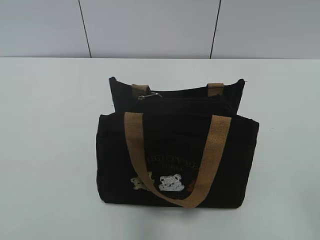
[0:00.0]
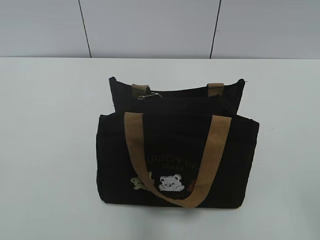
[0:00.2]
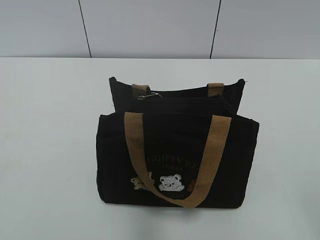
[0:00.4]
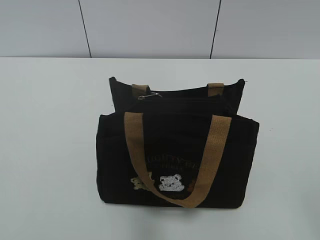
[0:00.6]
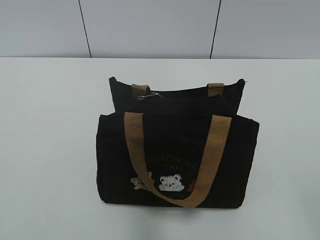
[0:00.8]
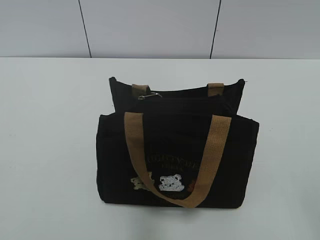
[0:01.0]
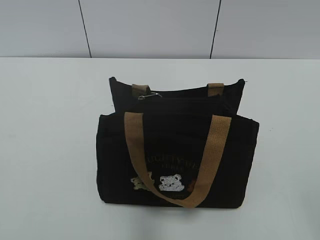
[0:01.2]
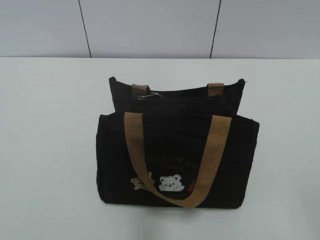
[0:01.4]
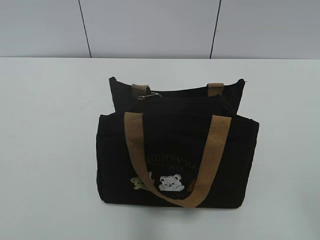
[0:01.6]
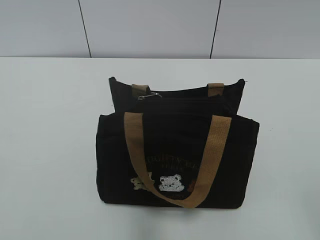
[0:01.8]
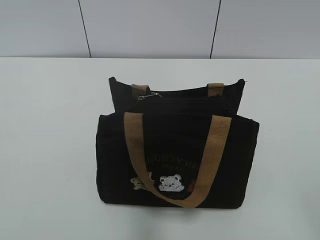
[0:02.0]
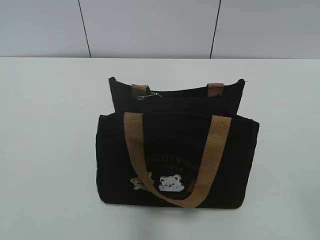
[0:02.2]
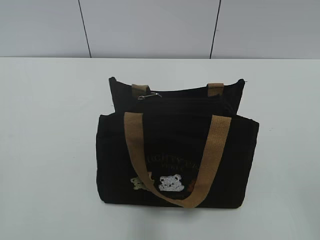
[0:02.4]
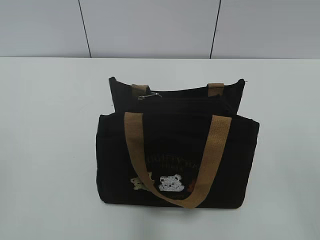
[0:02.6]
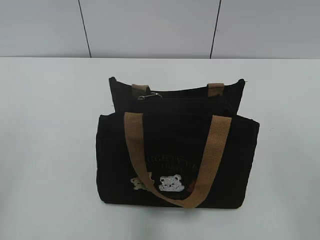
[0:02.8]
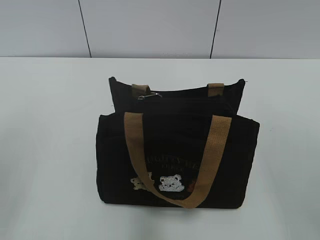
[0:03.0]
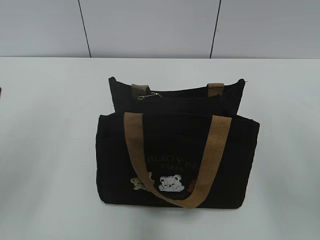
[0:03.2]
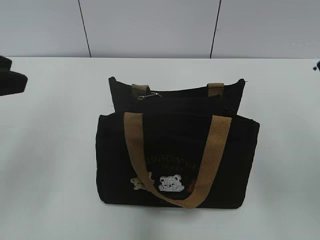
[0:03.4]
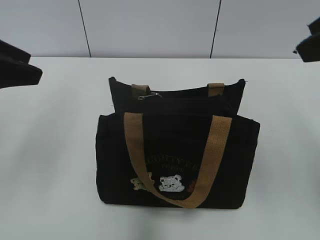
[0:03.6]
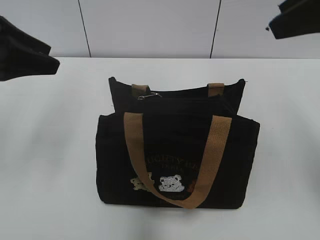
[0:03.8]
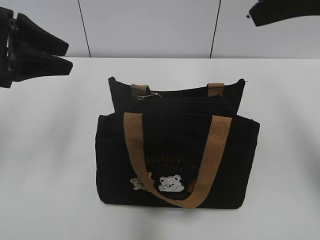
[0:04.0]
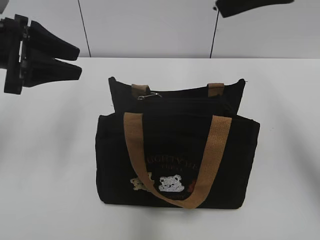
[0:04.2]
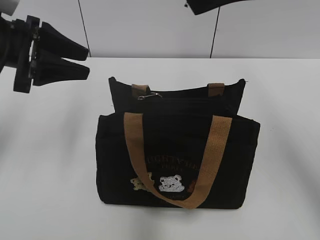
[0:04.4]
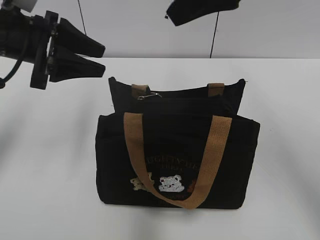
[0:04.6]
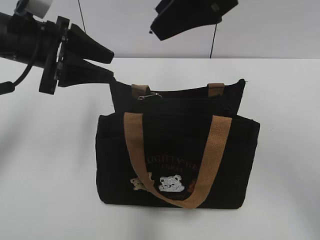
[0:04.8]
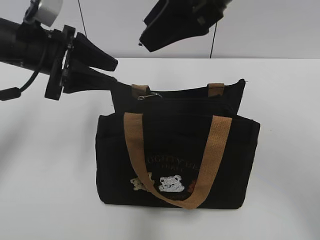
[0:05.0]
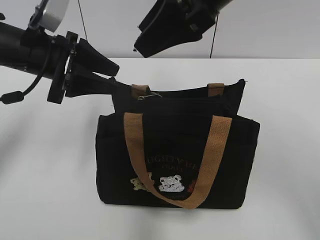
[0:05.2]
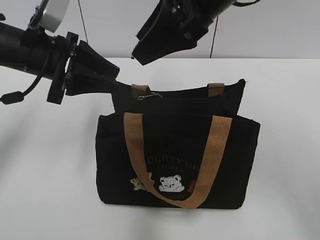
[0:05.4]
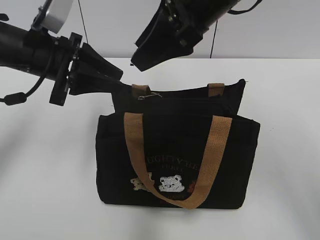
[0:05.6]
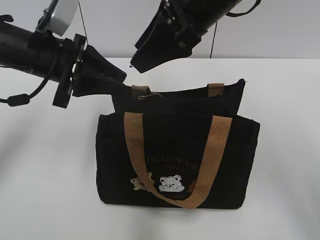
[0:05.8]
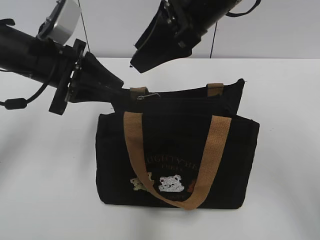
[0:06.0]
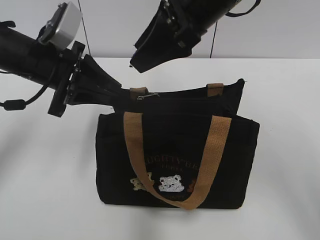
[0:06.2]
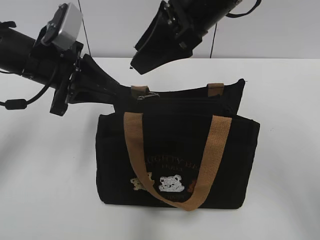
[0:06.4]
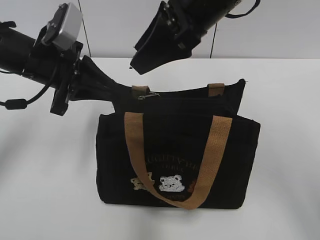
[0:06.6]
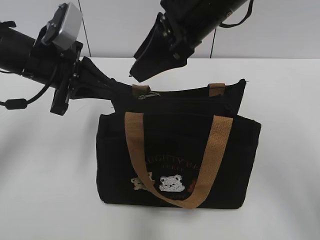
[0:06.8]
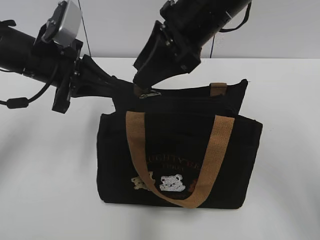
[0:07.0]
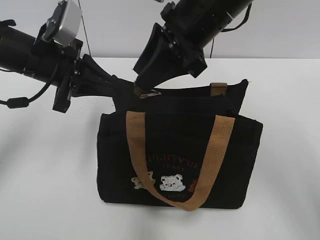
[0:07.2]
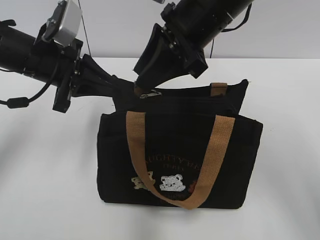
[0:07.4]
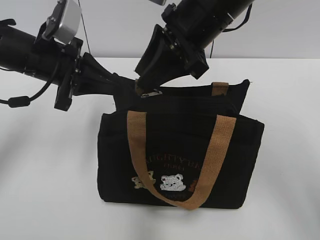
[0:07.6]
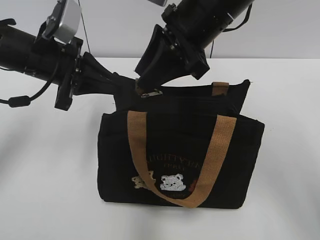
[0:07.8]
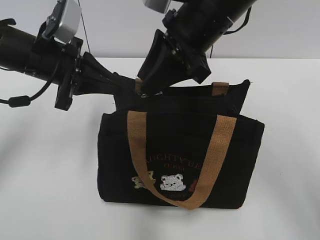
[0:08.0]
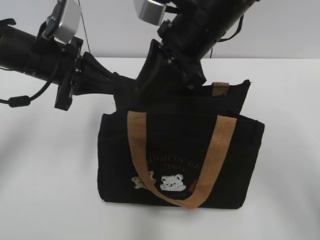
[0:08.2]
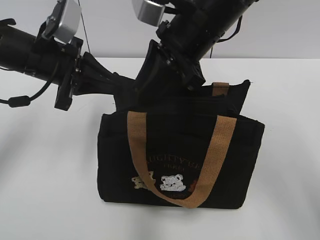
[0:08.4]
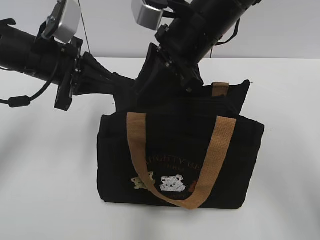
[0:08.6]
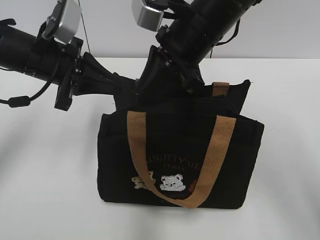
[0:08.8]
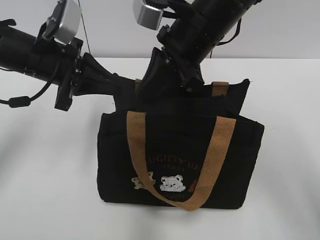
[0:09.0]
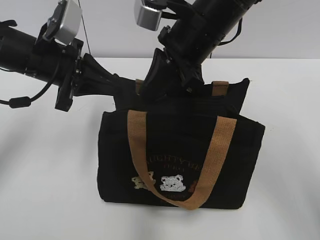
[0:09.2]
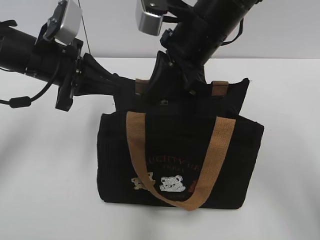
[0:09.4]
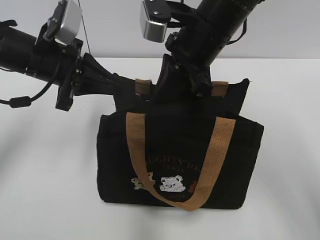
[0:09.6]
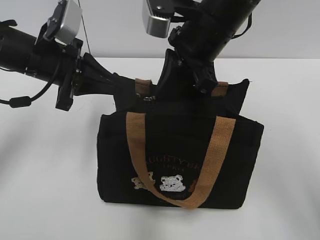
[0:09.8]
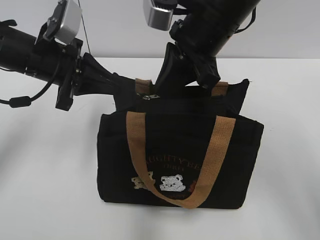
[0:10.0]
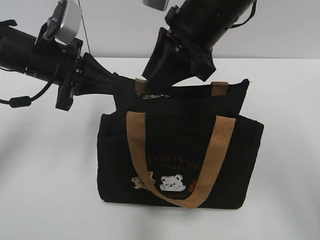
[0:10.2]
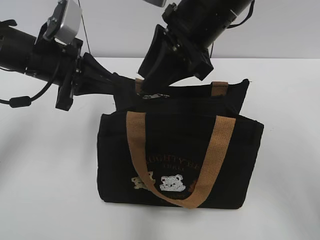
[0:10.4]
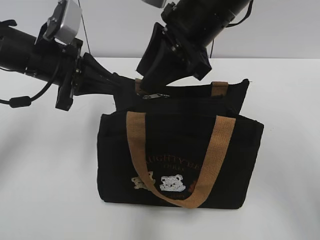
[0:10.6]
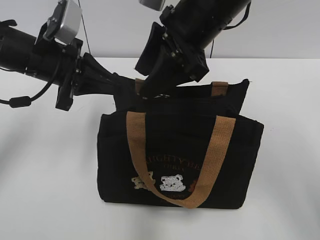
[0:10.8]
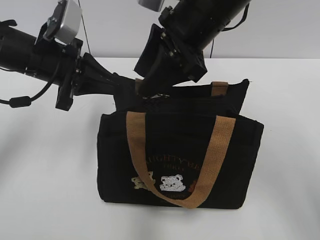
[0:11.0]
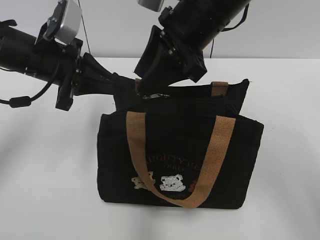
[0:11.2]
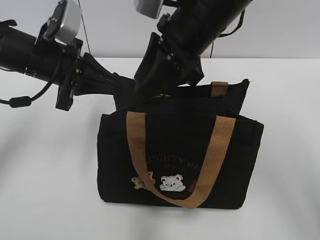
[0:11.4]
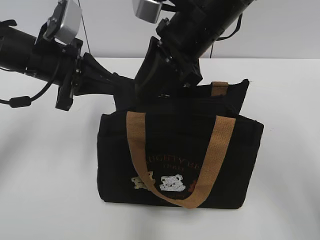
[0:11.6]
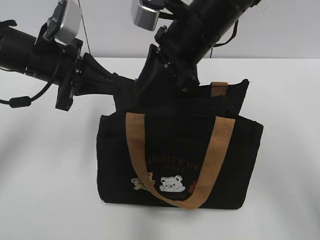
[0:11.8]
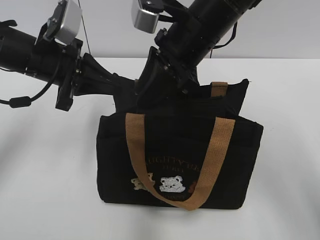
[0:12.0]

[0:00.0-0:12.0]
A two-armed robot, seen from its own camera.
0:03.0 to 0:04.4: The right gripper is displaced forward and to the left by about 25 cm. Meanwhile the left gripper goes about 20 cm forward.
0:04.4 to 0:06.0: The left gripper shifts roughly 5 cm to the right, and closes its fingers. Meanwhile the right gripper moves to the left and downward, approximately 10 cm.
0:06.0 to 0:07.6: The left gripper closes its fingers.
0:07.6 to 0:09.0: The right gripper closes its fingers.
0:09.0 to 0:10.4: The right gripper opens its fingers.
0:10.4 to 0:12.0: There are only small adjustments of the grippers.

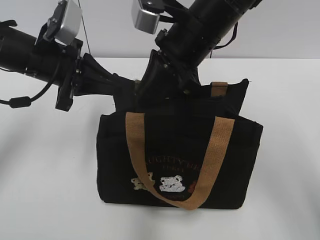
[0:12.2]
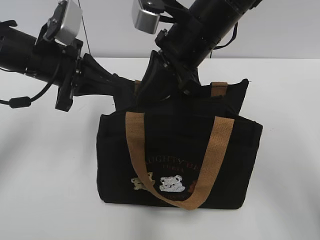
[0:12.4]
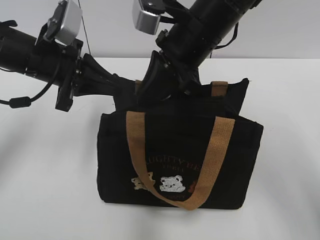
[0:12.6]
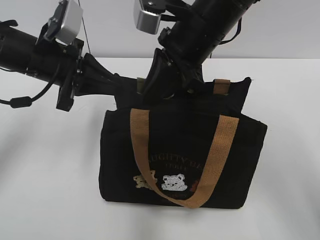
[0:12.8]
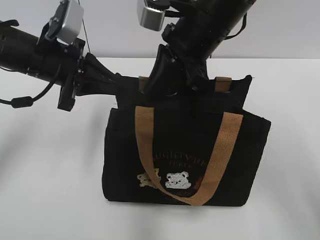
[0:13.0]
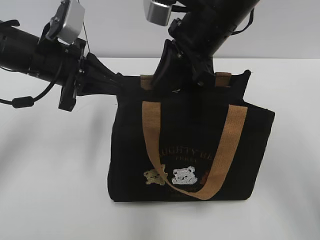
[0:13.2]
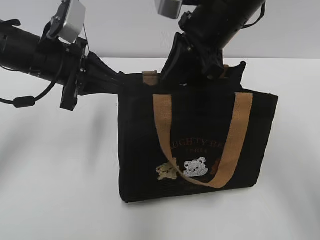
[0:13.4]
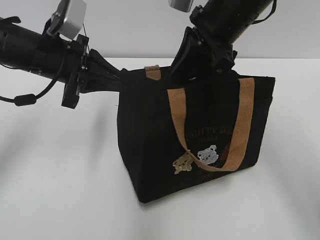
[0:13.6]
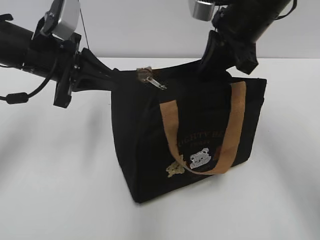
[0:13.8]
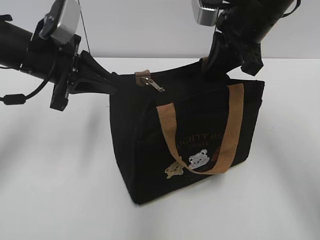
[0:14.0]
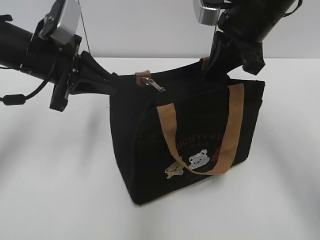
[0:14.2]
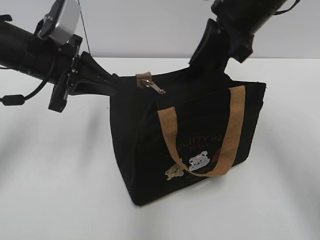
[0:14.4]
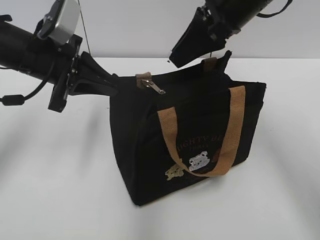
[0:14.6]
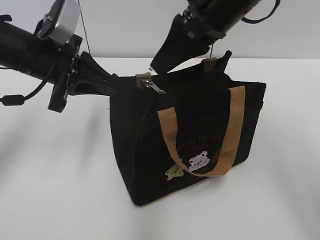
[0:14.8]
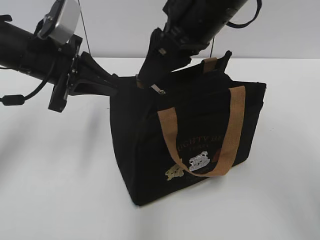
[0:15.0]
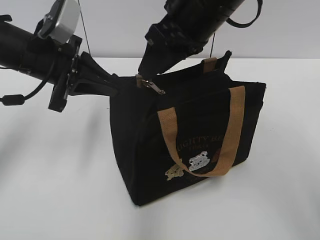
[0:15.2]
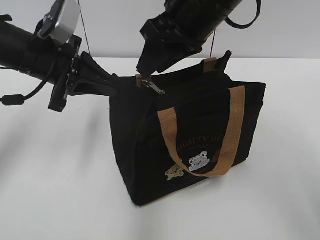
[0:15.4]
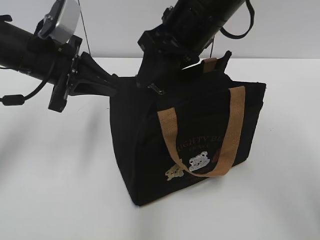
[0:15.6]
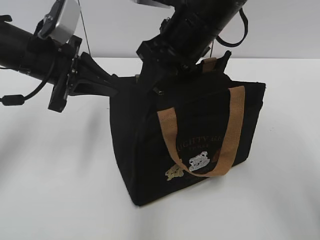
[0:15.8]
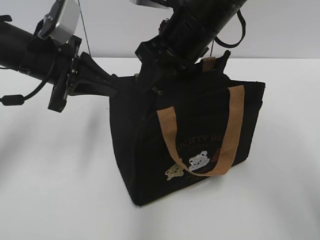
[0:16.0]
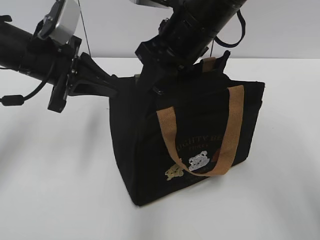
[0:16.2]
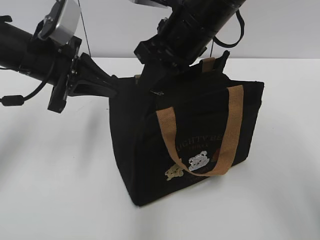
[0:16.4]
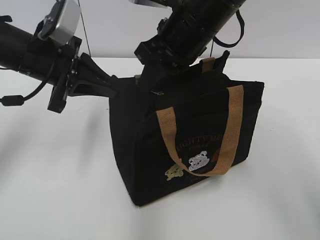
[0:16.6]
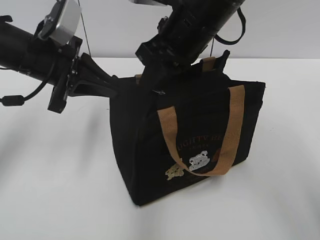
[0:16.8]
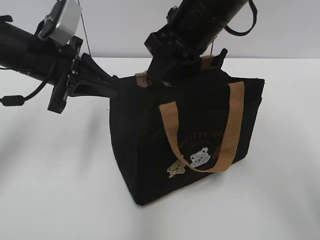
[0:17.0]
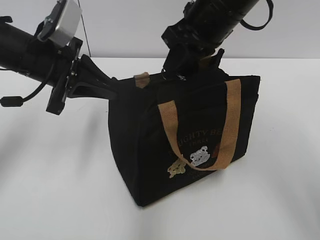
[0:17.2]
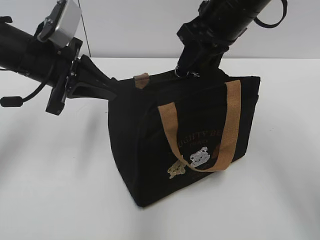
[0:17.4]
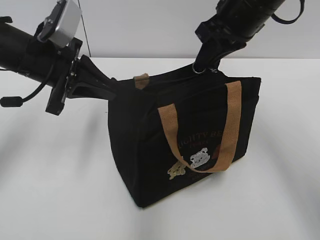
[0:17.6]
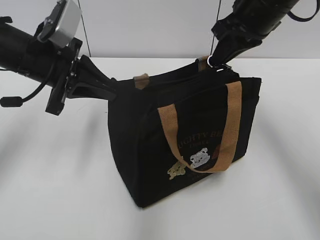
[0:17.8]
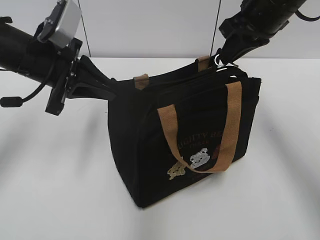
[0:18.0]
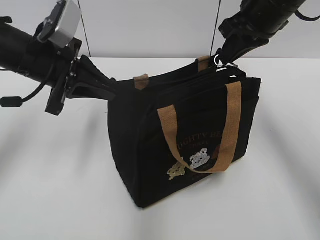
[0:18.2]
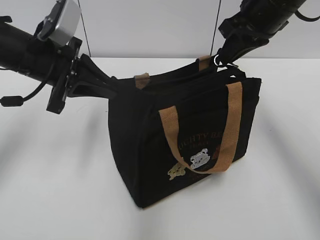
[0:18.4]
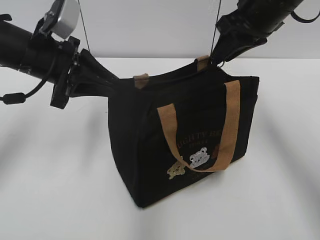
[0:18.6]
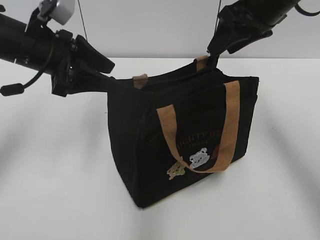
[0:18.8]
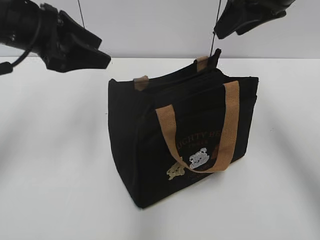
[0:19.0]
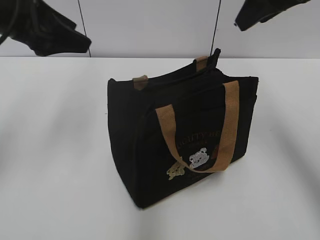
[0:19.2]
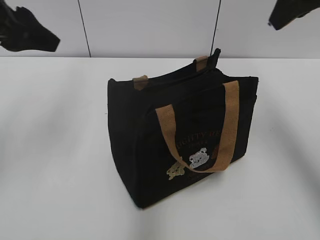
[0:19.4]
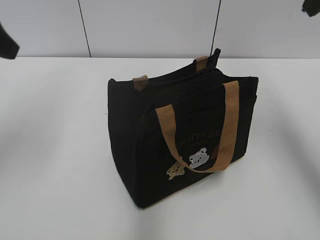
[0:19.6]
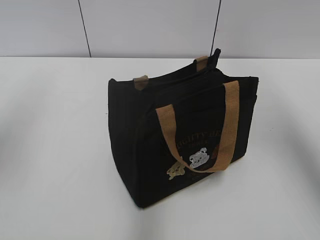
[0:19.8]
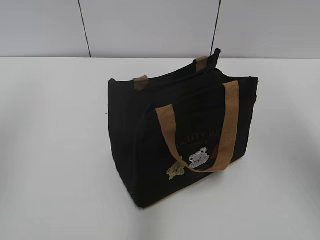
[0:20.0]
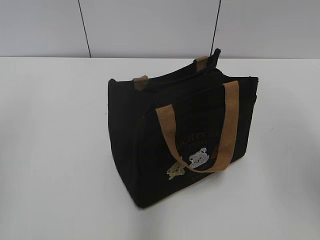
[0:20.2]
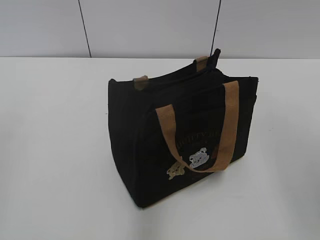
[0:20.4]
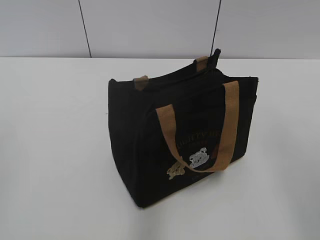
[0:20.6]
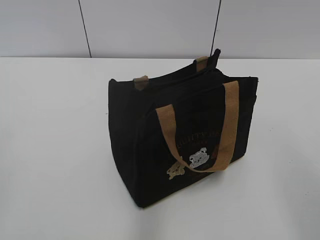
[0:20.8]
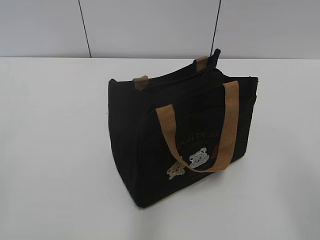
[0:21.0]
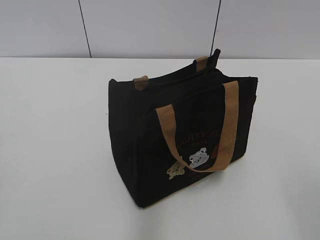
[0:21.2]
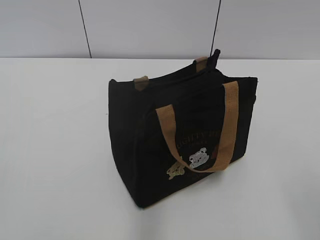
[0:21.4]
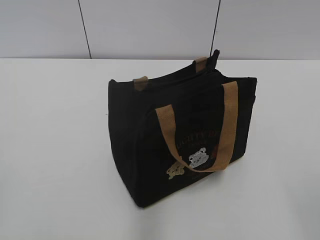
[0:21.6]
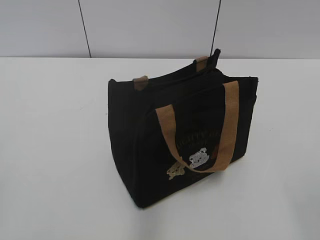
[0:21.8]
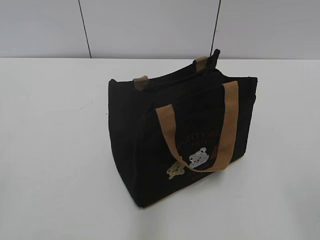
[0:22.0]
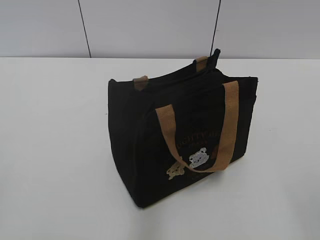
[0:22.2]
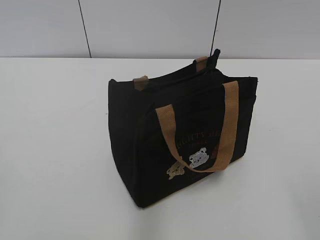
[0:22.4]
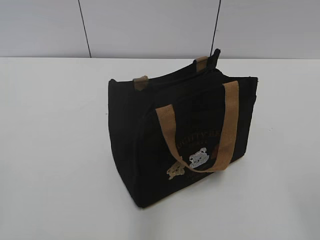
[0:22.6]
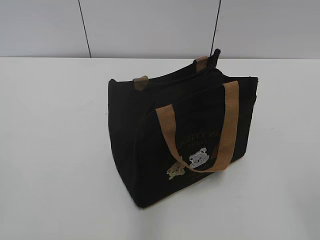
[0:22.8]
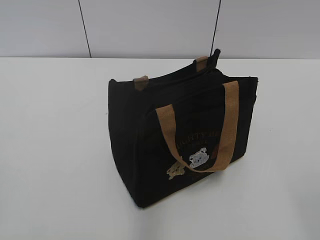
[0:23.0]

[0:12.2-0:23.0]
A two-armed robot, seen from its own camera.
Step, 0:12.2 to 0:18.6: Pull open the zipper with your right hand.
0:12.2 to 0:13.8: The right gripper heads to the right, covering roughly 5 cm.
0:13.8 to 0:15.2: The right gripper travels to the left by about 5 cm, and opens its fingers.
0:15.2 to 0:16.8: The right gripper closes up.
0:16.8 to 0:18.4: The right gripper moves to the right, some 10 cm.
0:18.4 to 0:20.0: The right gripper shifts some 20 cm backward, upward and to the right, and opens. Meanwhile the left gripper moves upward, backward and to the left, roughly 20 cm, and opens up.
0:20.0 to 0:21.4: The right gripper moves backward and downward, some 25 cm.
